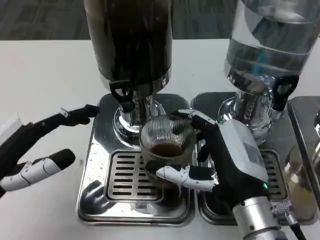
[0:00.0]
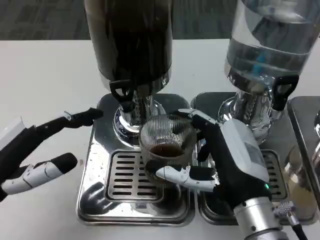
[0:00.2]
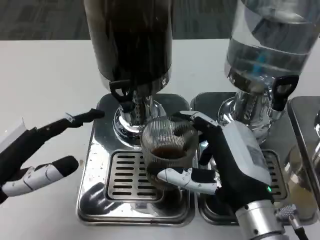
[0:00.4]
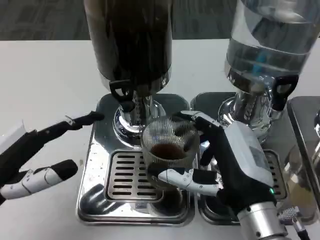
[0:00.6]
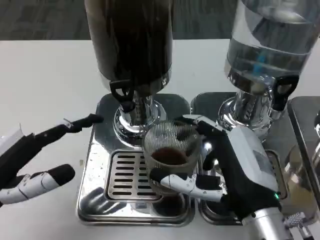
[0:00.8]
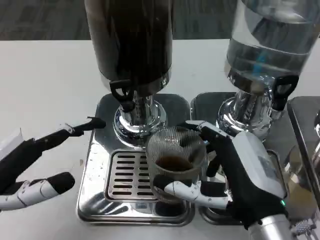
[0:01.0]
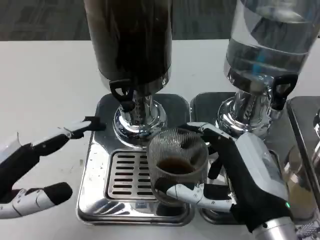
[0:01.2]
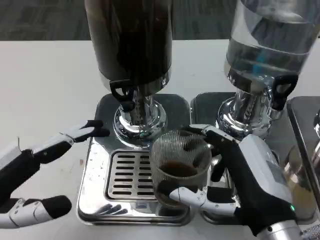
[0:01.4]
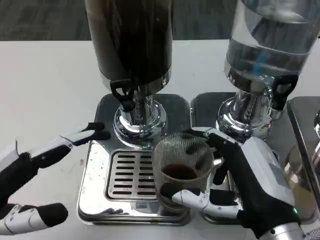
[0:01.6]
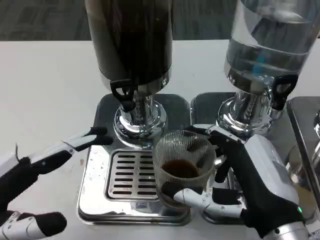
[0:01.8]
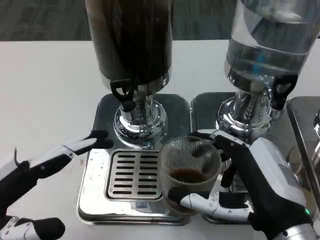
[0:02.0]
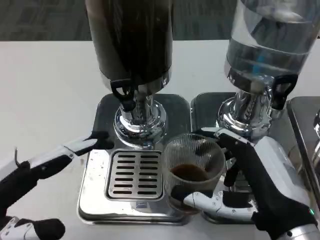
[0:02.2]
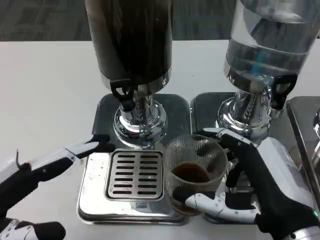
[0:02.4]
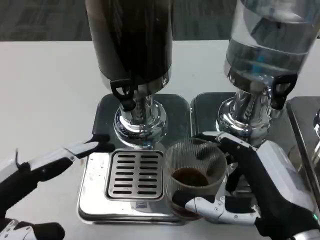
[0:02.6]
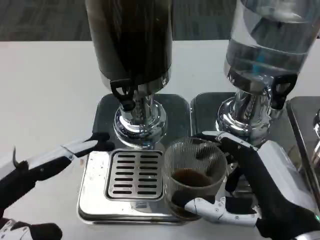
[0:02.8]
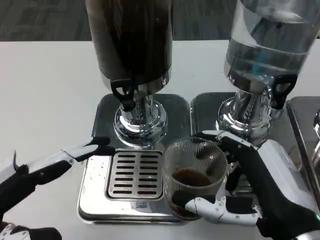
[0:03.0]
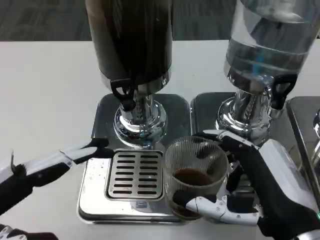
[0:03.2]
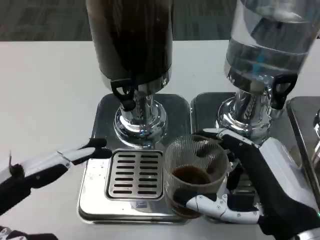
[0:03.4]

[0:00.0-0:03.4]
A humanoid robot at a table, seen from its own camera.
Task of the whole recording: Grasp the cup under the faucet to collect the drink, then remove the cup.
0.0 to 1.6 s: The right hand shifts by approximately 5 cm.

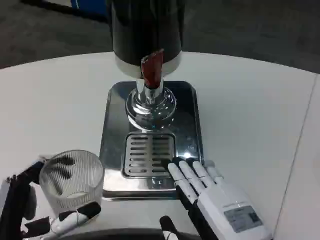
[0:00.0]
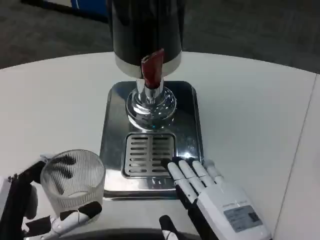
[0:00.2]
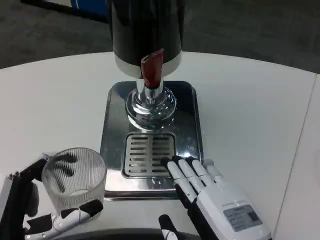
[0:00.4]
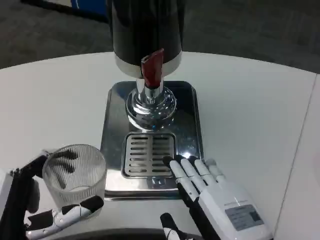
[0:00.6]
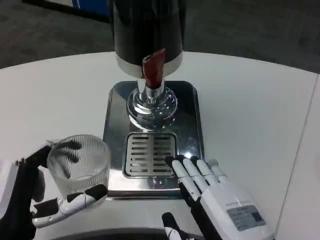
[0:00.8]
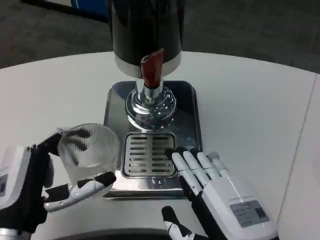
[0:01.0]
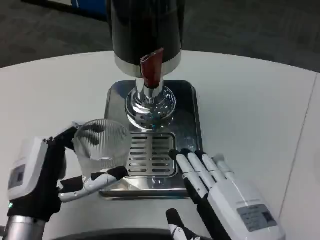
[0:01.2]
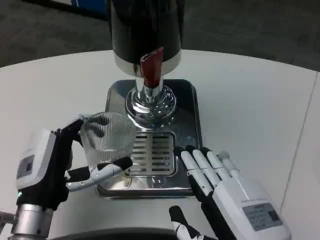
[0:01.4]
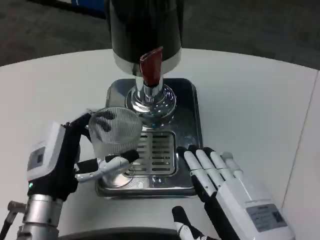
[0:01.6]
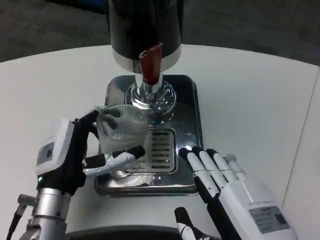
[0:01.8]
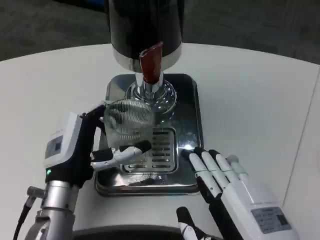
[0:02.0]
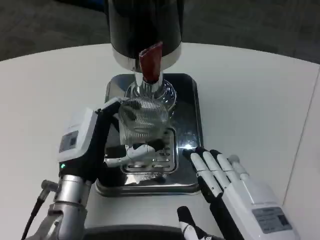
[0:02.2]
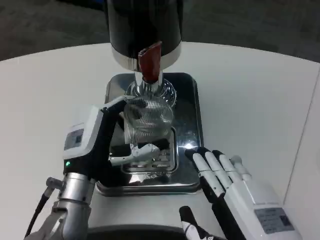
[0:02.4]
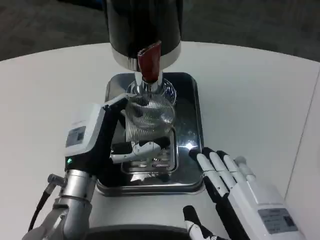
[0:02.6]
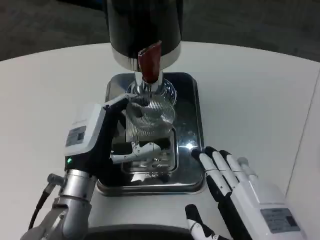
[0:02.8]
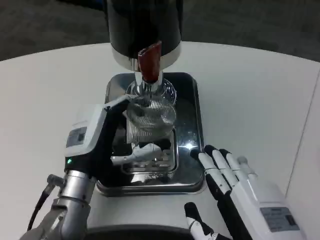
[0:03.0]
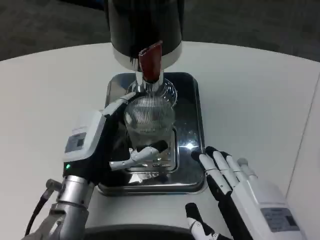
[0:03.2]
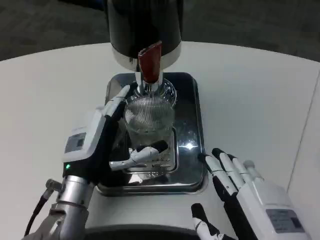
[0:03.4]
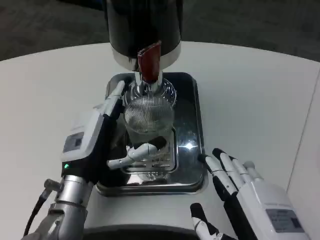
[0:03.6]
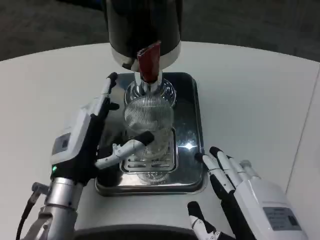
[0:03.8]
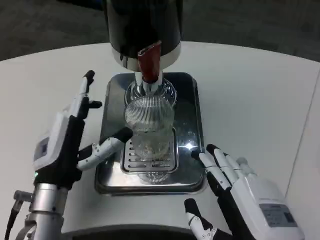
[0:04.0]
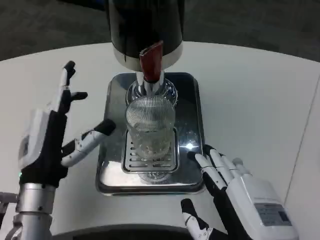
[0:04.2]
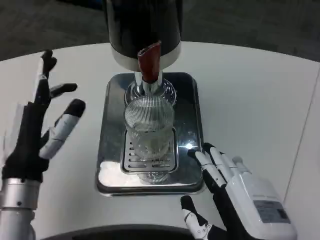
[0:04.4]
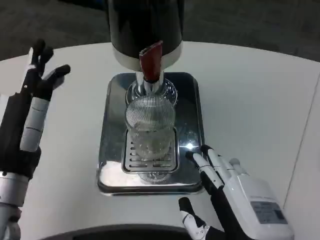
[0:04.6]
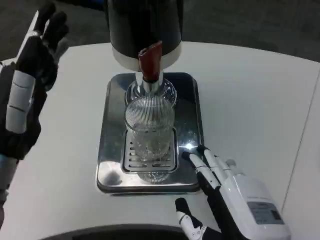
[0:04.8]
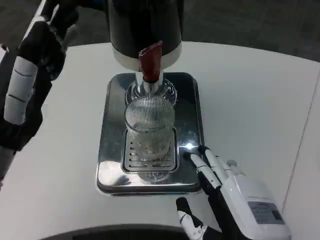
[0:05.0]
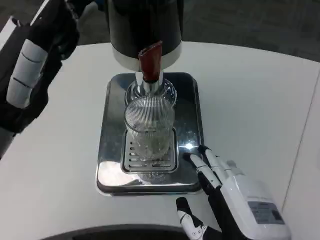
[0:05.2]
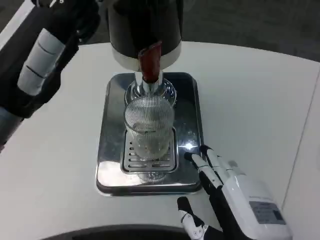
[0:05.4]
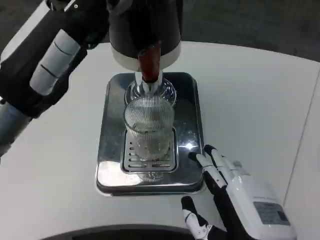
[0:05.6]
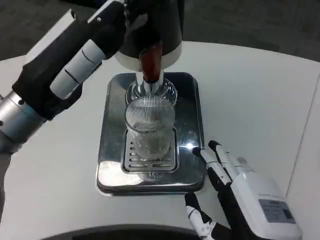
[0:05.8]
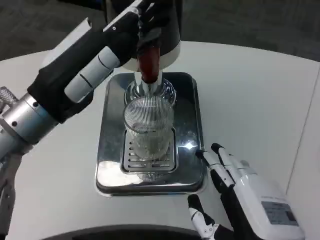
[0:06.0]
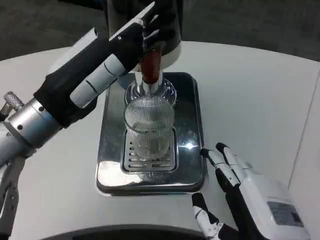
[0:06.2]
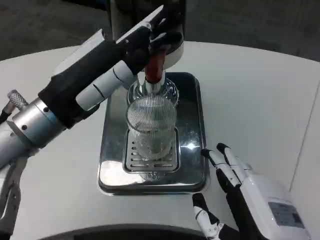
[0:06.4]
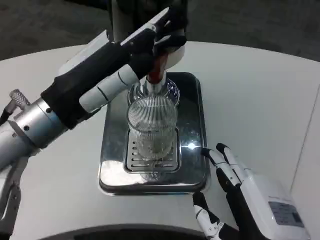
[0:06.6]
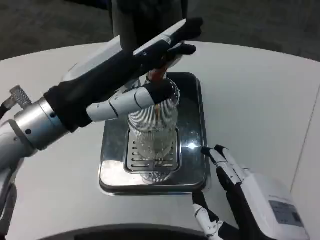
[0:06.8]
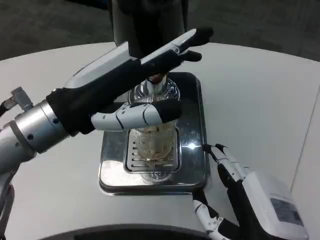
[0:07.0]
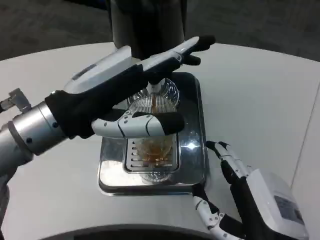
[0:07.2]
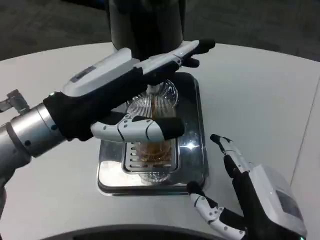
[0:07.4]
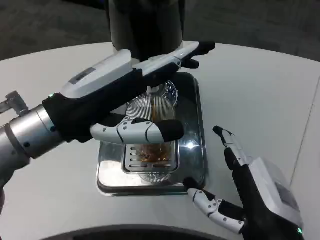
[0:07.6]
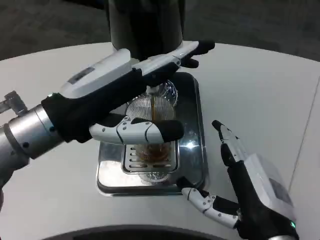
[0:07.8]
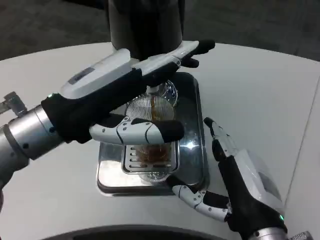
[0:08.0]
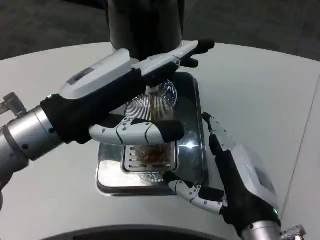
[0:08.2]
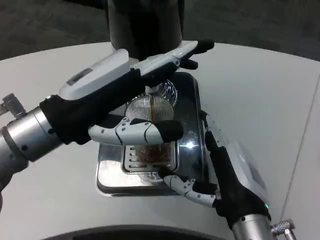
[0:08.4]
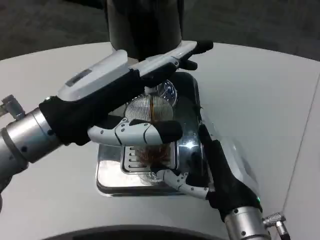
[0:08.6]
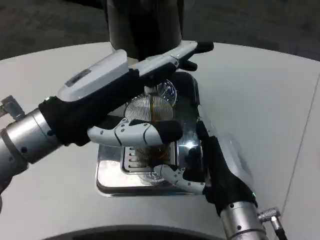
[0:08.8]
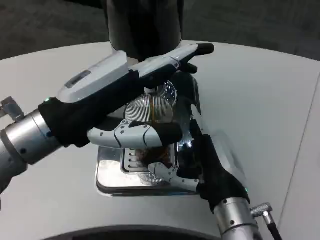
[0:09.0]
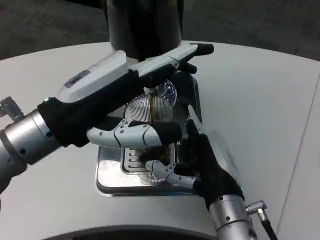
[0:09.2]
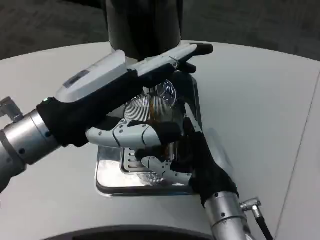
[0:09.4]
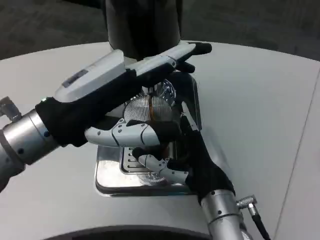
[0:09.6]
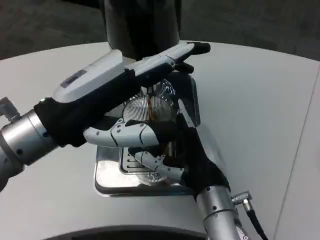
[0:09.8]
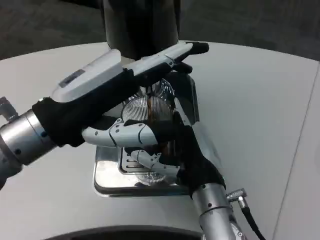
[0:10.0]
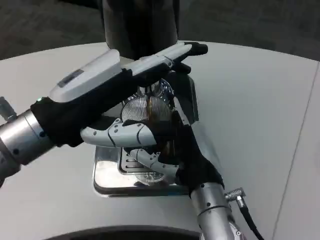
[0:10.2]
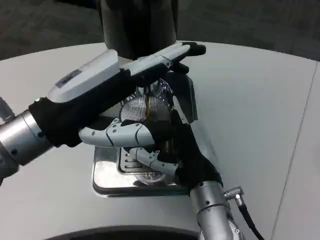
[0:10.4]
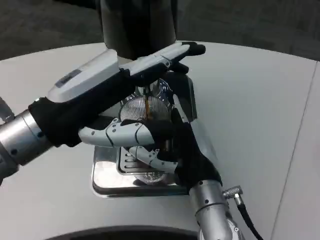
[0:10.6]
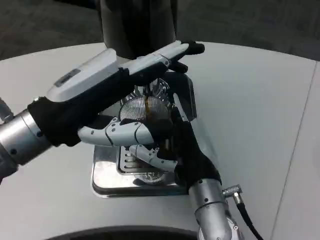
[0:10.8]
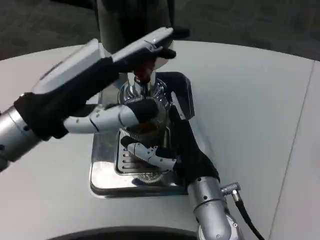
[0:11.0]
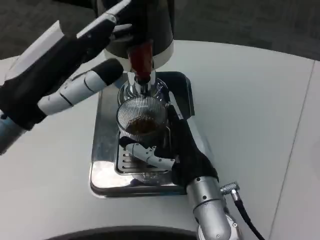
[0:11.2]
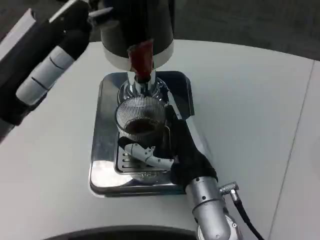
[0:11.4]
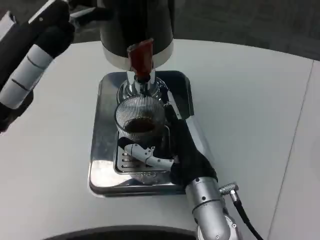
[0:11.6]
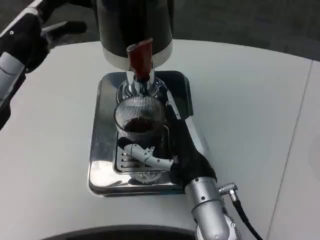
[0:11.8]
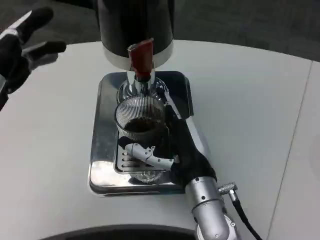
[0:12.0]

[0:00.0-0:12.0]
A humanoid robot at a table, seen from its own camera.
Task of the whole recording: Grasp the cup under the faucet to collect the drink, then remove the cup.
0.0 to 1.6 s: The left hand shifts some 10 cm forward.
3.0 to 4.4 s: The left hand heads to the left, covering about 5 cm.
4.4 to 6.0 s: The left hand shifts roughly 15 cm upward.
7.6 to 9.0 s: The right hand goes about 5 cm forward.
10.4 to 12.0 s: The left hand is displaced to the left by about 5 cm.

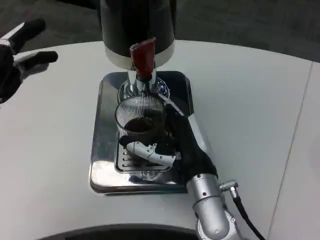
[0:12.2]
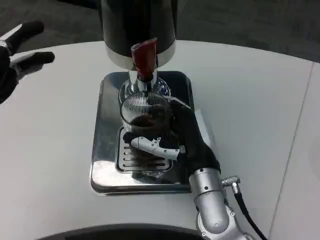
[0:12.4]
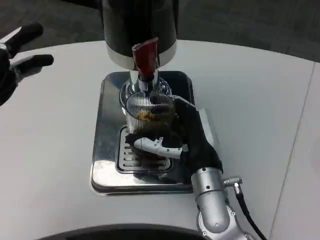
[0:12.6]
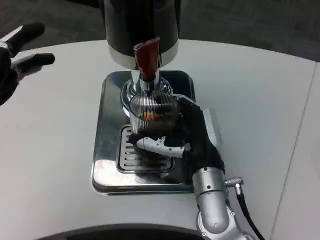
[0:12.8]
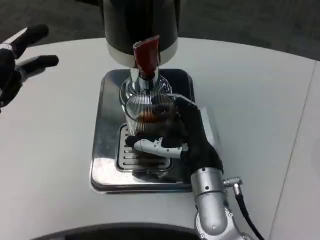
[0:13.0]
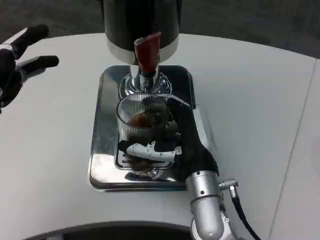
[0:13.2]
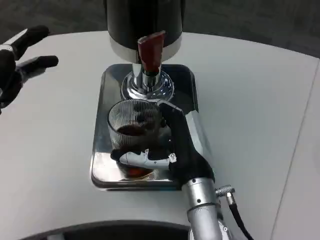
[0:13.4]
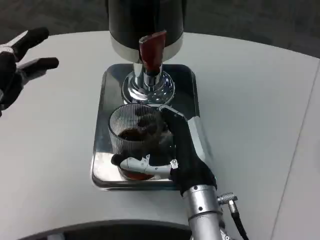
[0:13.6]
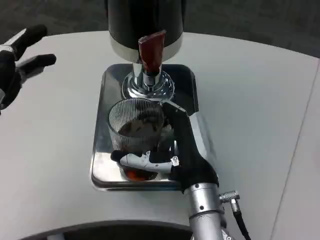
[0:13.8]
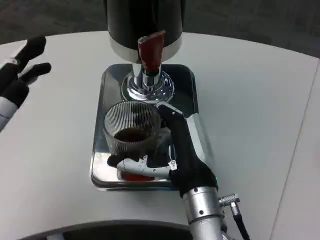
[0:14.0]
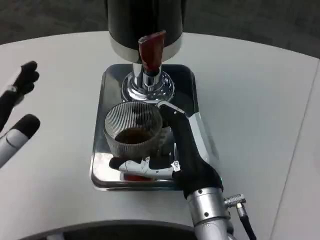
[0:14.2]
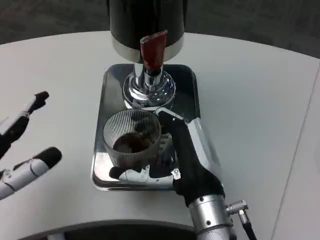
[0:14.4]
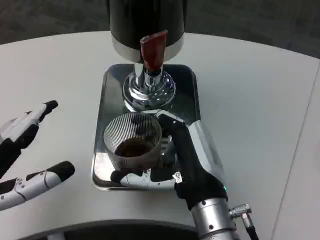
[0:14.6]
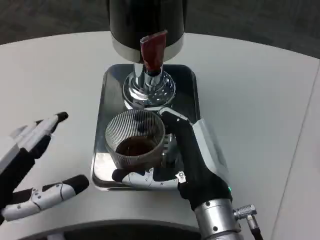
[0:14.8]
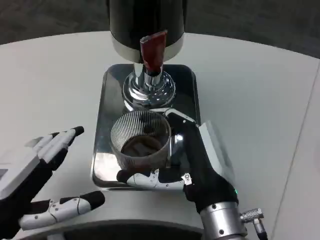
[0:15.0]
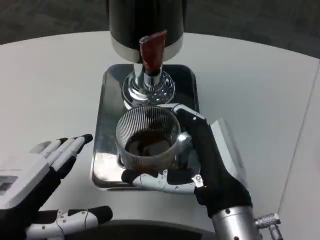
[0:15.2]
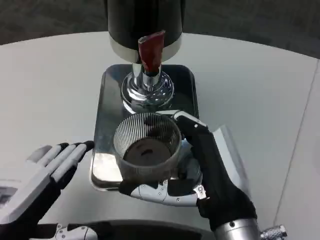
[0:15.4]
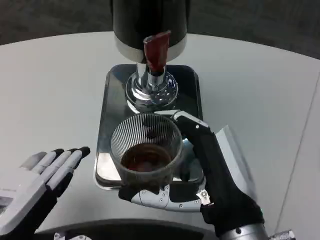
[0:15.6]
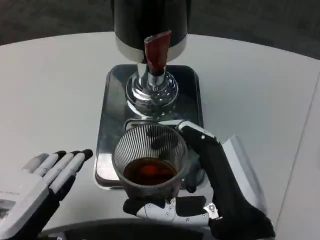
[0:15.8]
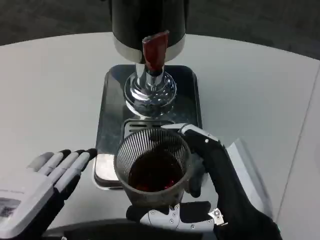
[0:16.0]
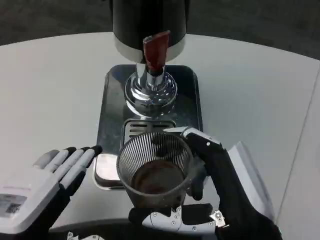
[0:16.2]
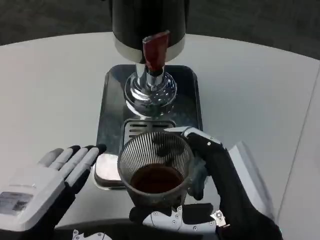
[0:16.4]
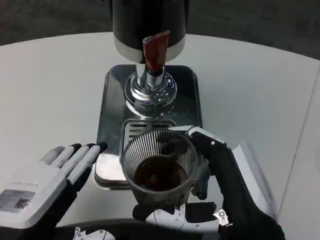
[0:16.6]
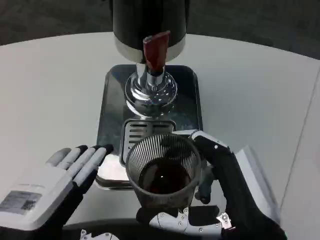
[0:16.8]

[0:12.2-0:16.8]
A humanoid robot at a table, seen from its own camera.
Task of the whole recording: Grasp the cup under the faucet to collect the drink, then remove the cup.
13.8 to 15.2 s: The left hand moves about 5 cm, while the right hand goes roughly 5 cm backward.
15.2 to 16.8 s: The right hand goes roughly 5 cm backward.

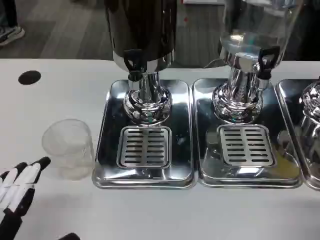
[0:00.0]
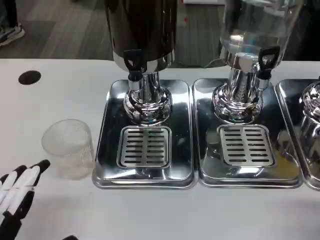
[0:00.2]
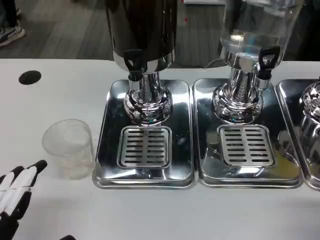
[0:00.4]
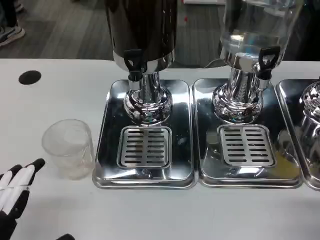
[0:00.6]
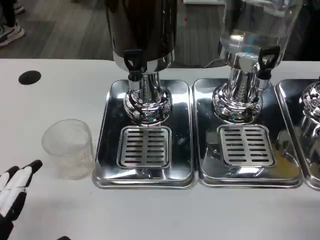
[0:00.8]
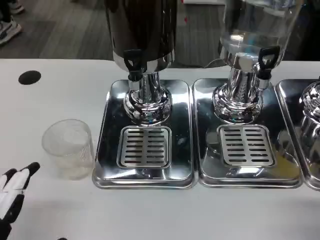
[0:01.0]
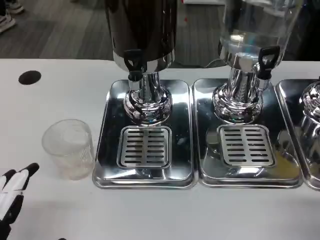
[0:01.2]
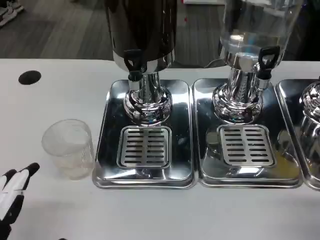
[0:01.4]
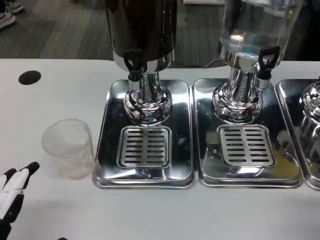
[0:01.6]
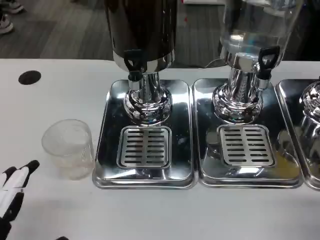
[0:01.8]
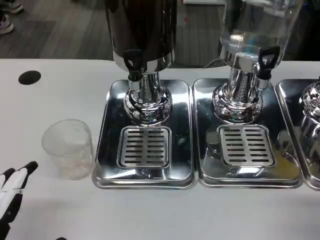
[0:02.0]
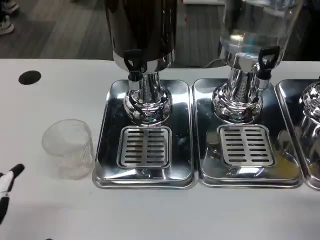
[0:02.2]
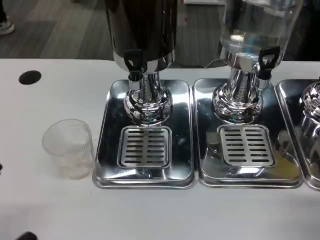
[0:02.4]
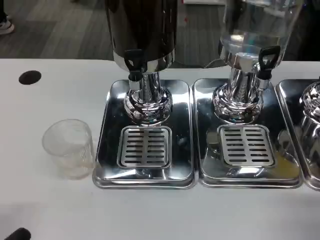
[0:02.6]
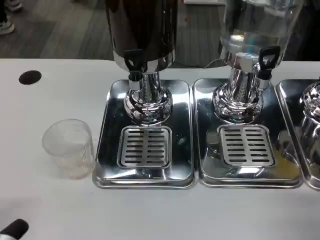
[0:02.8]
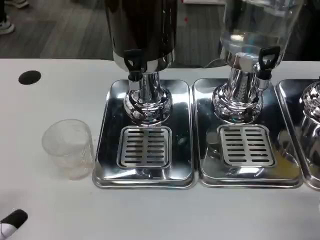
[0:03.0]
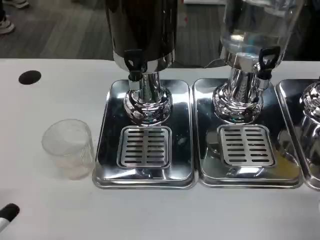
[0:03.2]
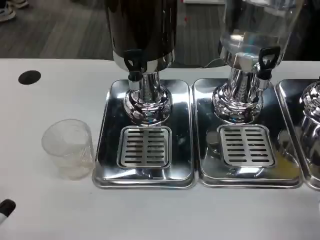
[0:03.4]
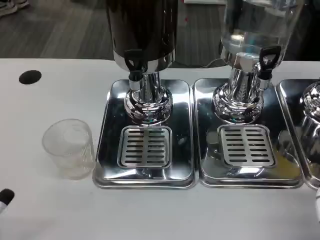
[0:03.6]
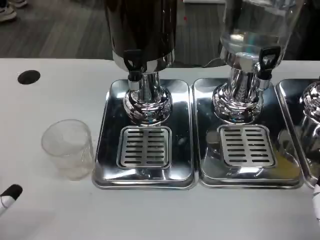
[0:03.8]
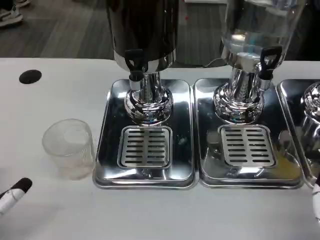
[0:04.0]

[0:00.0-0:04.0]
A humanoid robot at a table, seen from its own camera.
Task of the whole recording: Grasp the cup under the faucet to collect the drink, then remove the cup.
0.0 to 1.4 s: The hands make only small movements.
2.6 to 4.0 s: The left hand heads forward, covering roughly 10 cm.
